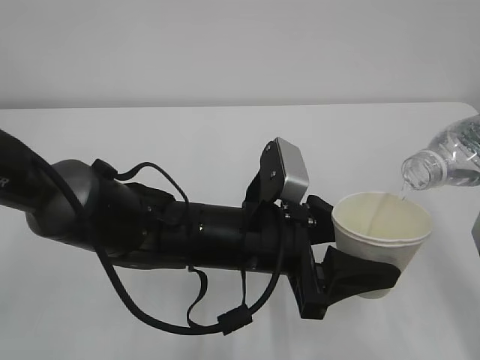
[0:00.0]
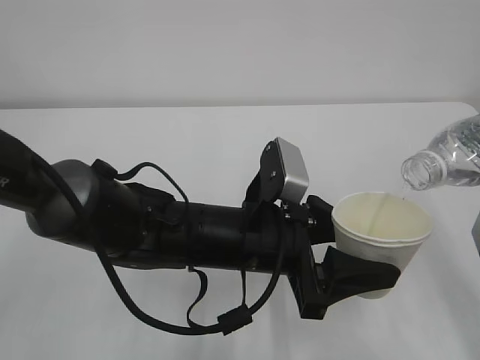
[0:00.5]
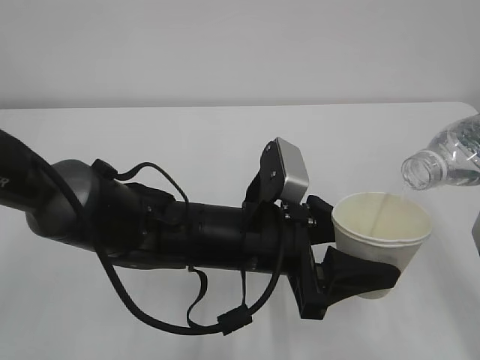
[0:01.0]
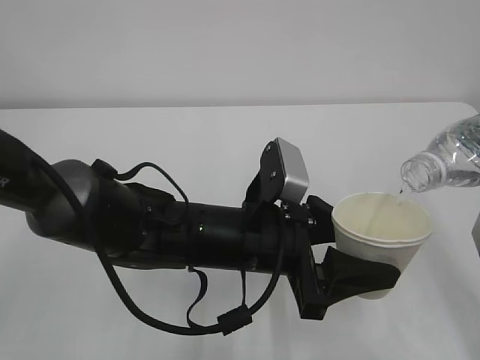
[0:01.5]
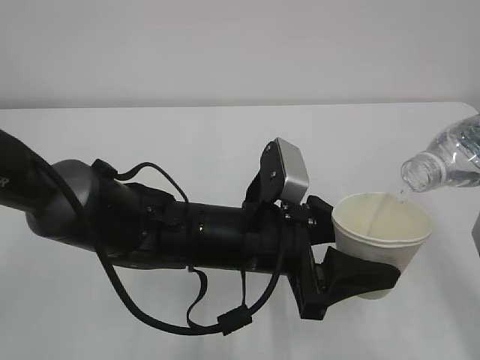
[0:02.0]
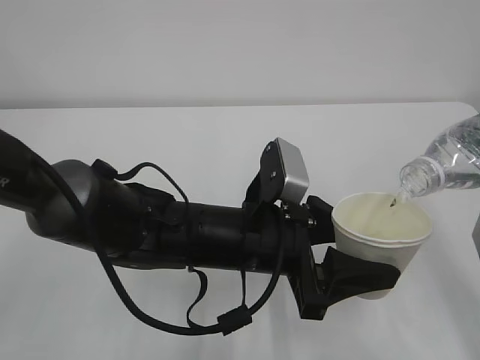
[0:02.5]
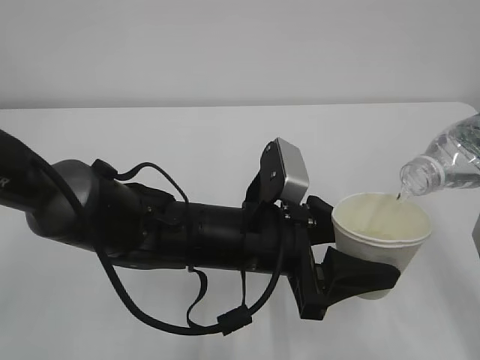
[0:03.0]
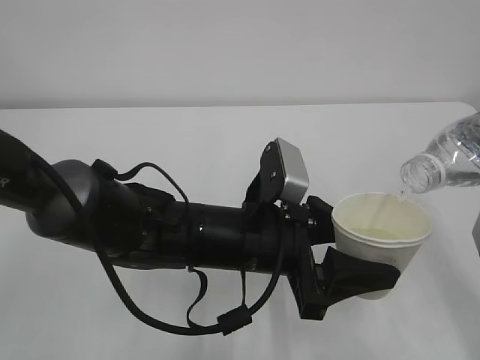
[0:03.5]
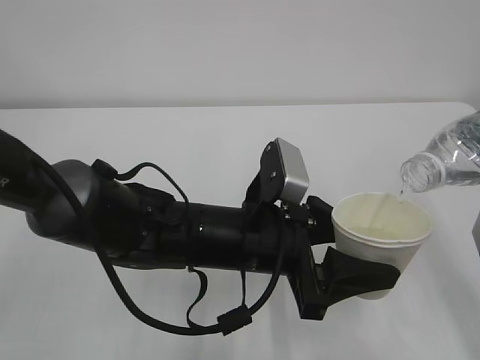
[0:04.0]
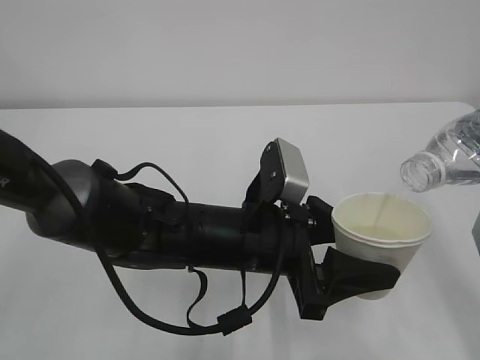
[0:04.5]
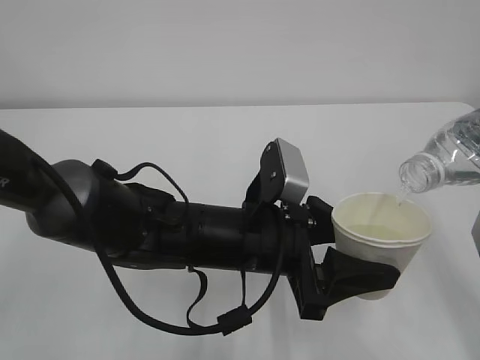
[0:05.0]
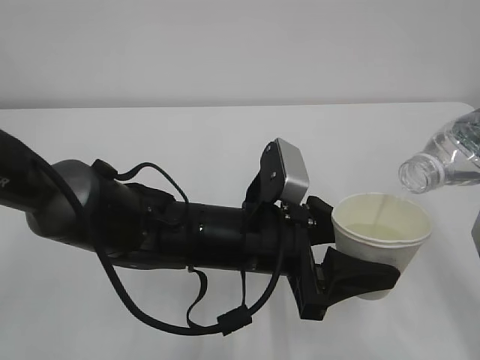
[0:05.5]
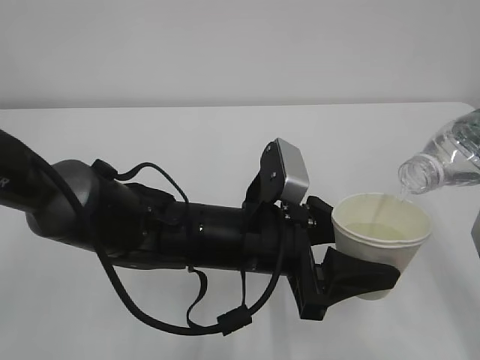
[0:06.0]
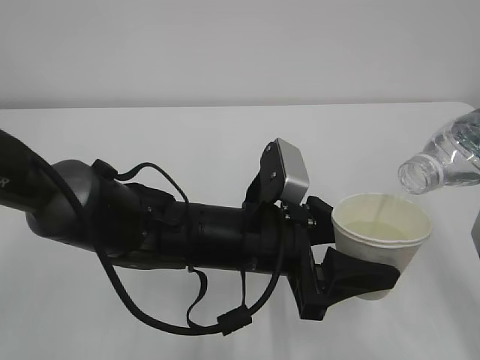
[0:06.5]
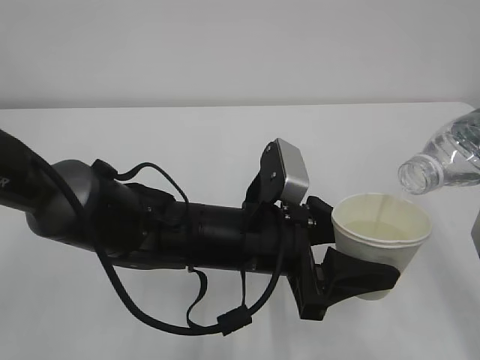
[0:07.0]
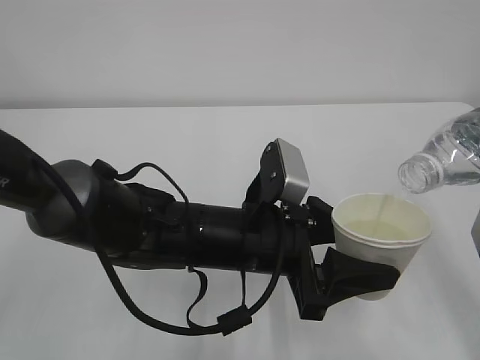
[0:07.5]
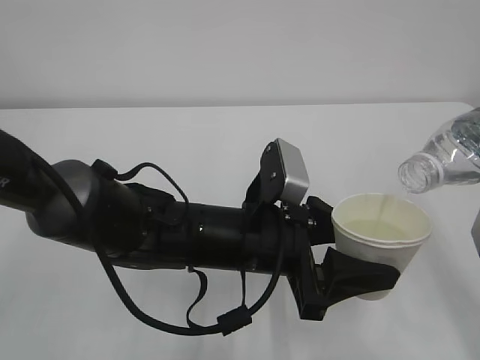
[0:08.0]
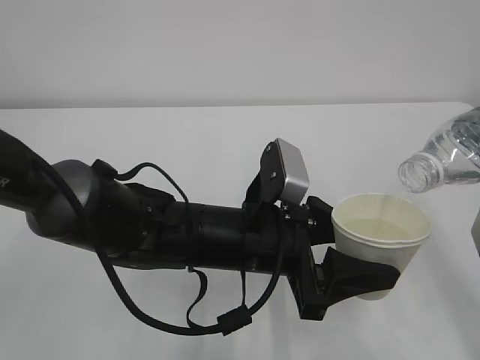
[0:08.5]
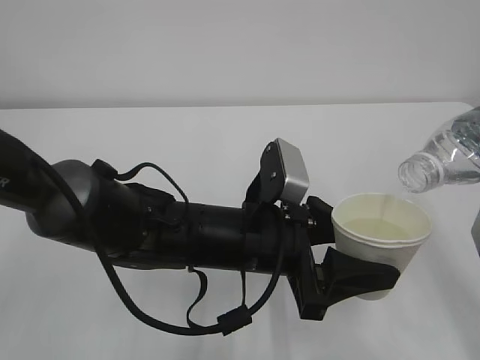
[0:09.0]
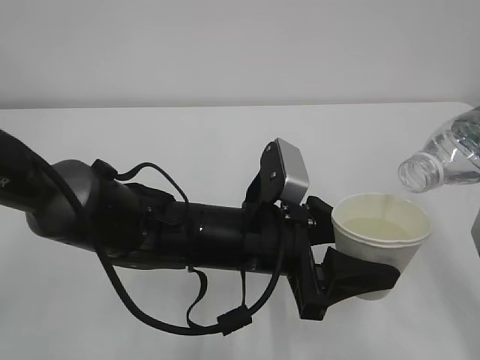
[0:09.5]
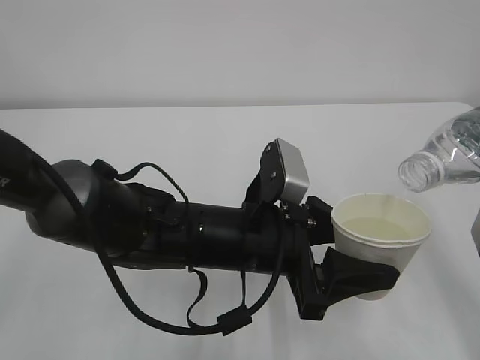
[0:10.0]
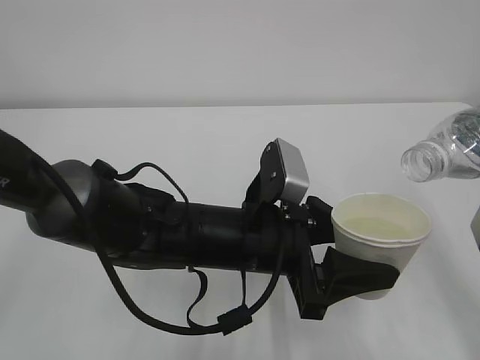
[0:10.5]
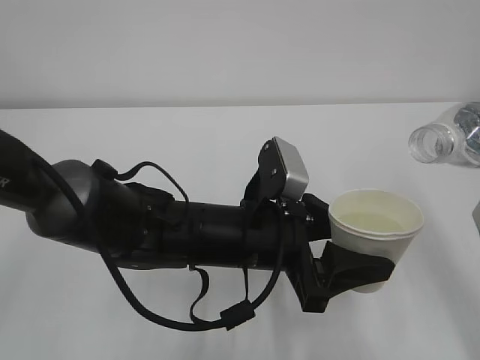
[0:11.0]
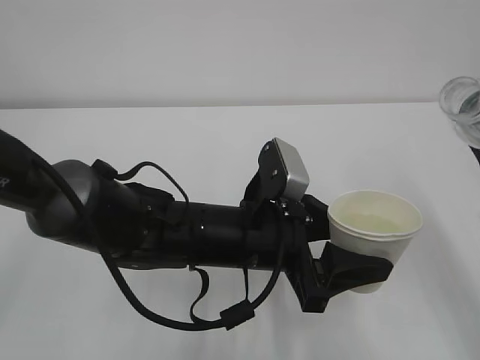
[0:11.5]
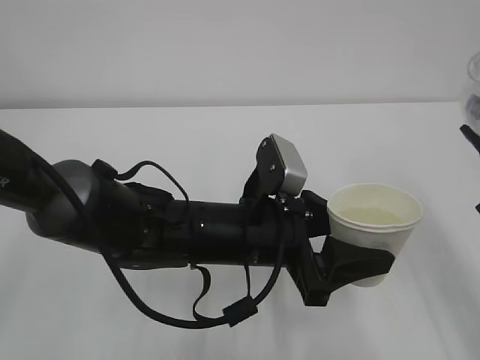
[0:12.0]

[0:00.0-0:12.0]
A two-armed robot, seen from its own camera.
0:00.0 to 0:10.0: Both grippers stay put.

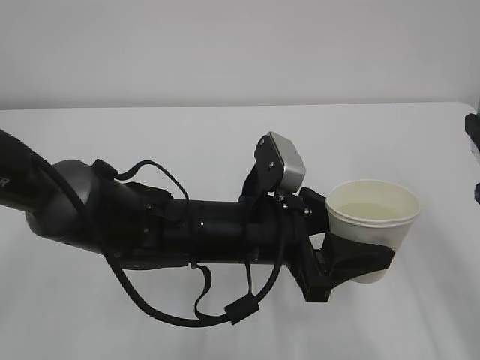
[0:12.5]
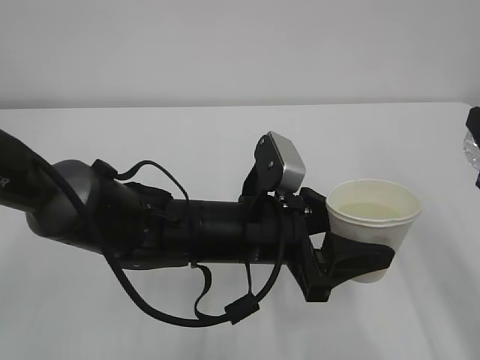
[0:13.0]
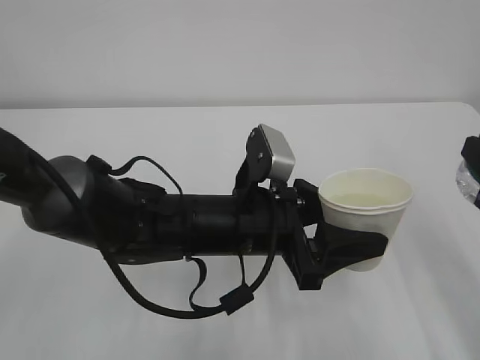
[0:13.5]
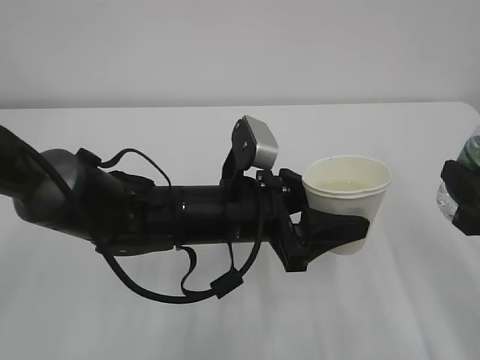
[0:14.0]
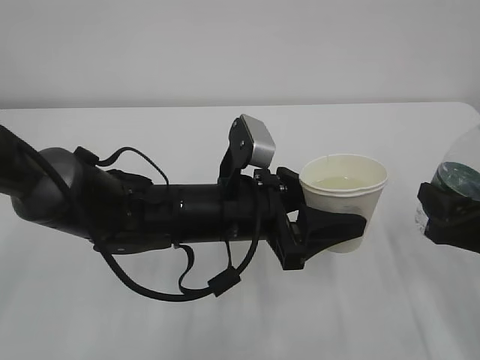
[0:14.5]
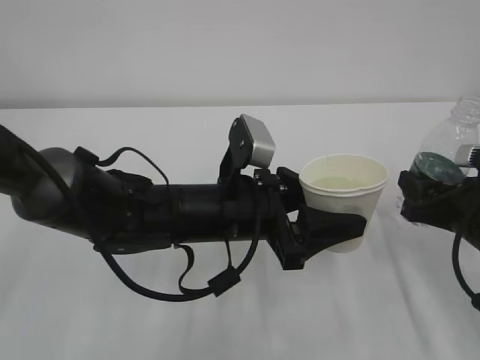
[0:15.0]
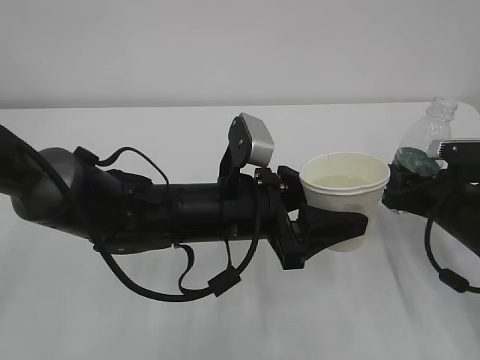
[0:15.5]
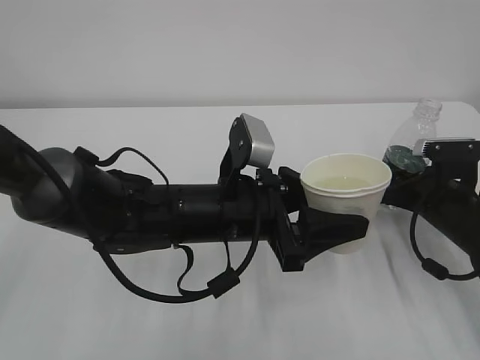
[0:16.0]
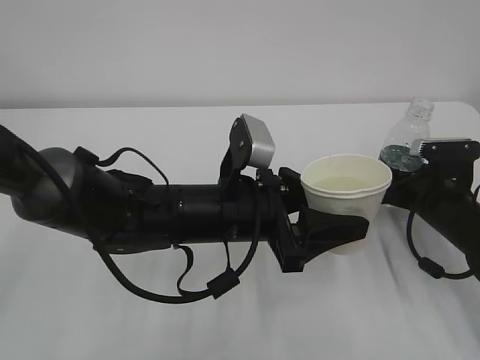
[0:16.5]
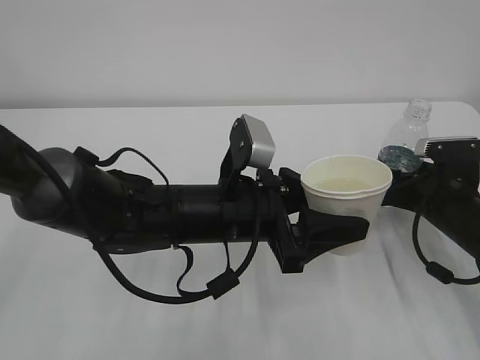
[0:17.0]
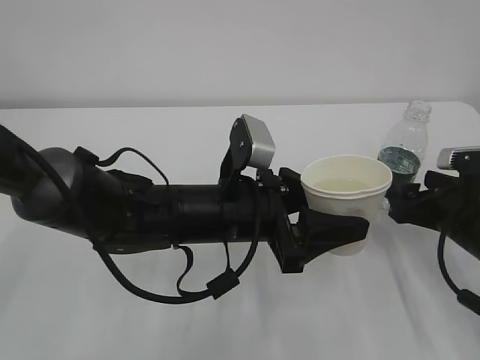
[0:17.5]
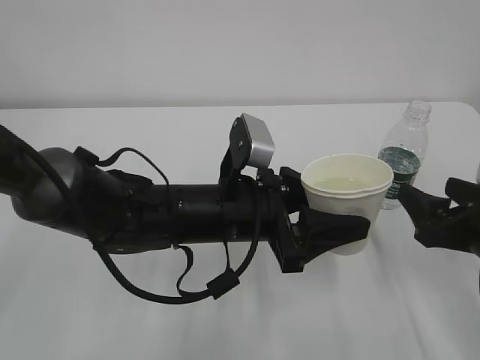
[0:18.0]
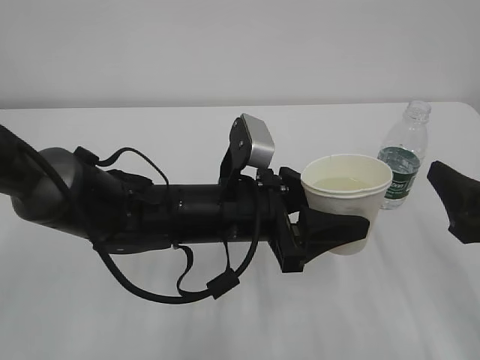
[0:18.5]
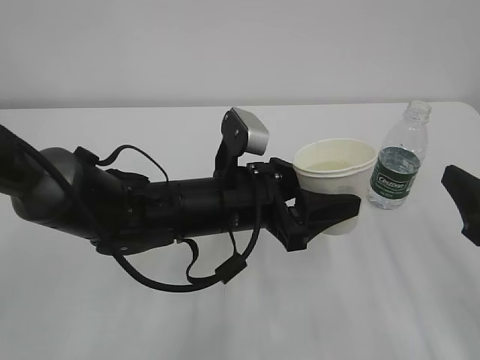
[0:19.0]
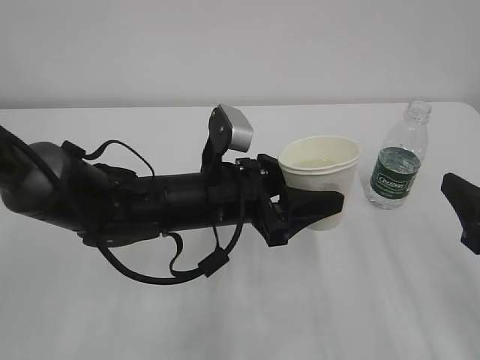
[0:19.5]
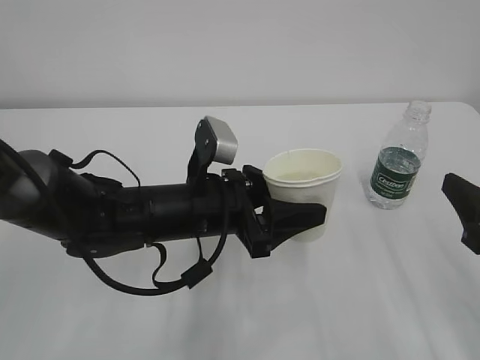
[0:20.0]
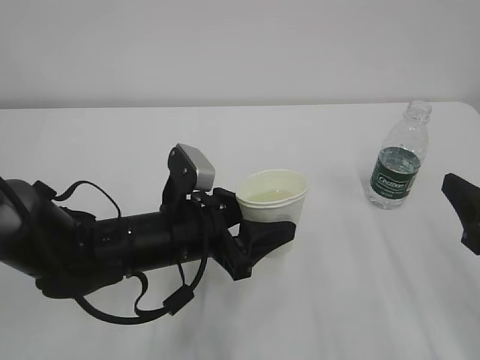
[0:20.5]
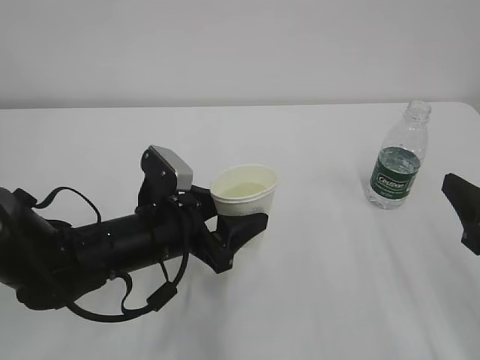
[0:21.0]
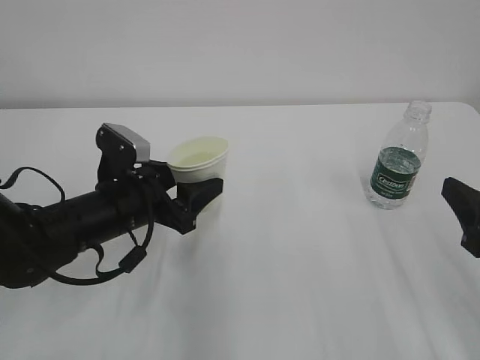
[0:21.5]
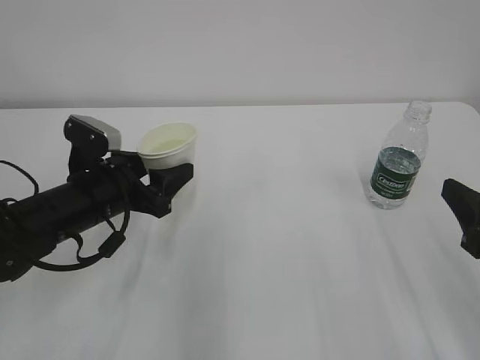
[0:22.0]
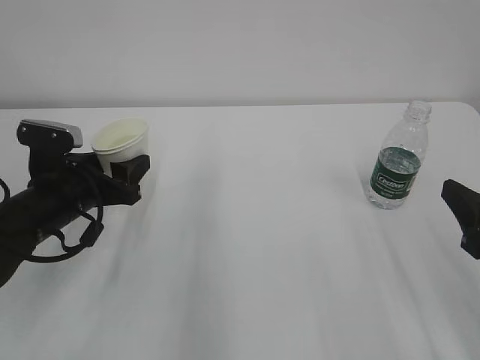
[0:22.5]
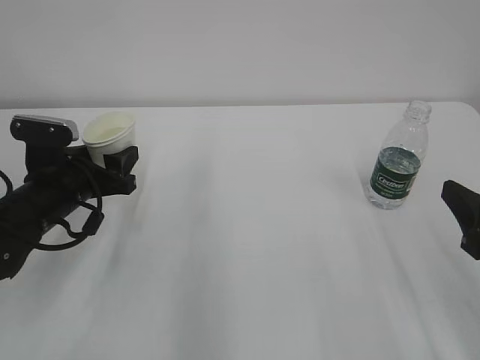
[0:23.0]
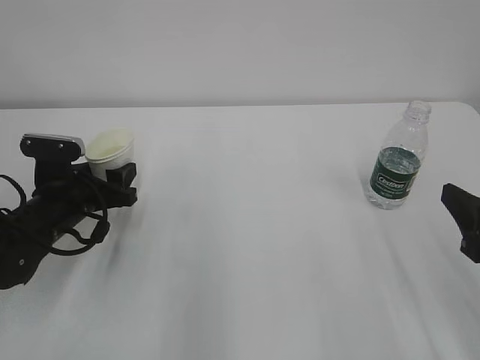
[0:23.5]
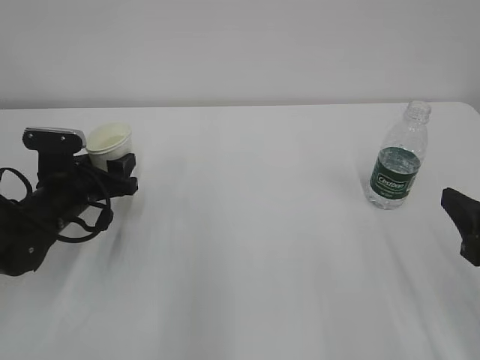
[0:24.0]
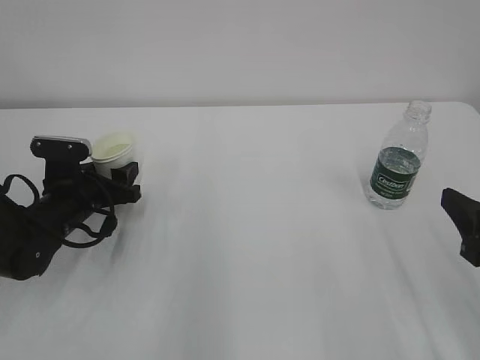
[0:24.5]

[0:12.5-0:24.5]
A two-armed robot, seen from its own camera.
0:12.5 to 0:14.5: The right gripper heads downward, covering about 10 cm.
0:14.5 to 0:16.5: The right gripper is displaced forward and downward by about 15 cm, and opens its fingers.
0:16.5 to 0:18.5: The right gripper goes some 20 cm backward and upward.
0:18.5 to 0:20.5: The left gripper goes roughly 5 cm to the left.
0:20.5 to 0:22.5: The left gripper shifts about 15 cm to the left.
0:22.5 to 0:24.5: The left gripper is displaced downward by some 5 cm.

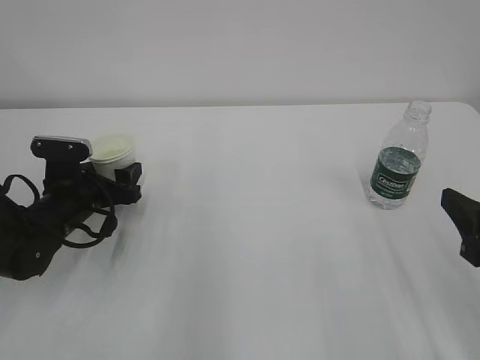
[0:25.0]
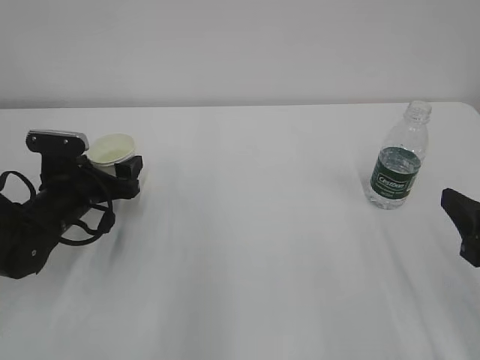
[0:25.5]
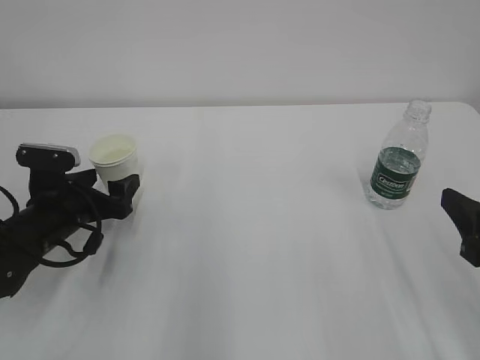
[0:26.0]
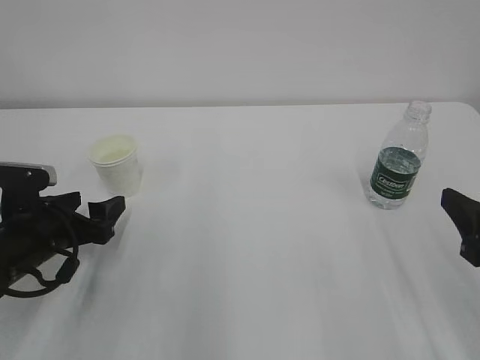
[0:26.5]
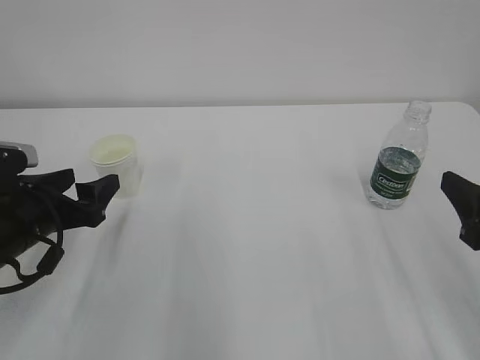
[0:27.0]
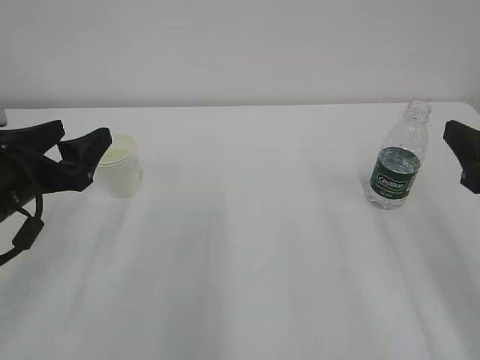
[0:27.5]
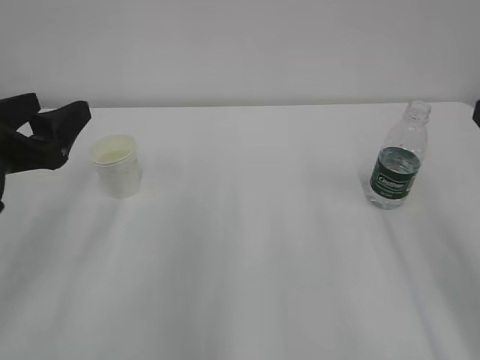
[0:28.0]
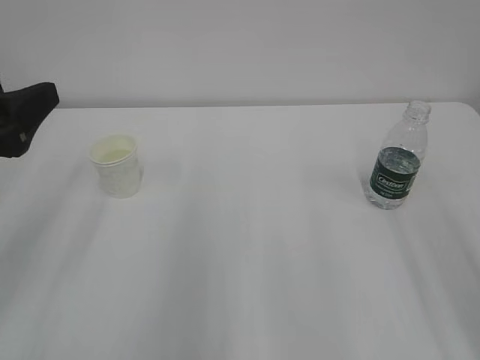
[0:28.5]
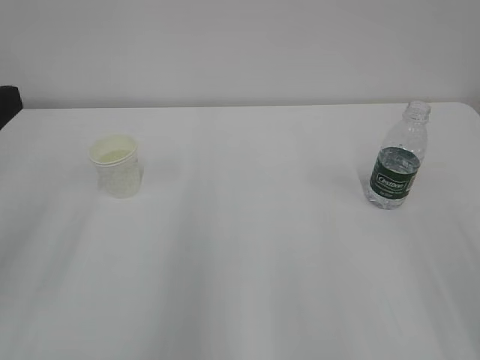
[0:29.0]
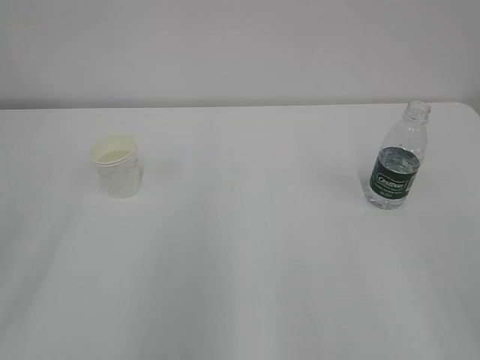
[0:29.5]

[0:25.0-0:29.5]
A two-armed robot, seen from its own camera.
0:25.0 to 0:27.0: The left gripper goes approximately 10 cm backward and upward.
0:27.0 to 0:29.5: The left gripper moves upward and backward, some 20 cm. The right gripper travels backward and upward by some 15 cm.
